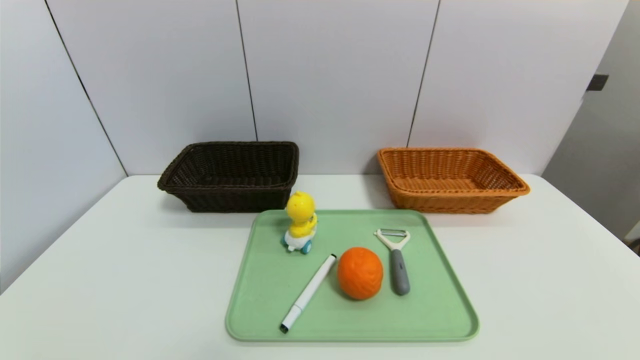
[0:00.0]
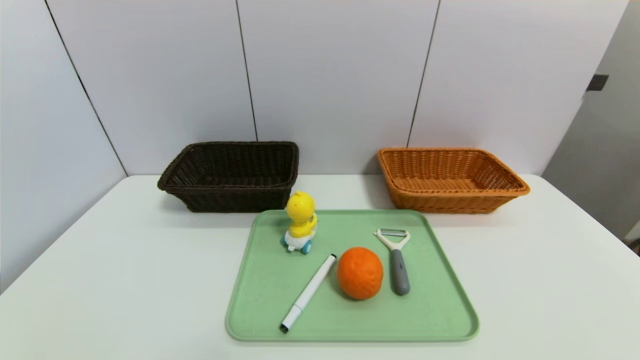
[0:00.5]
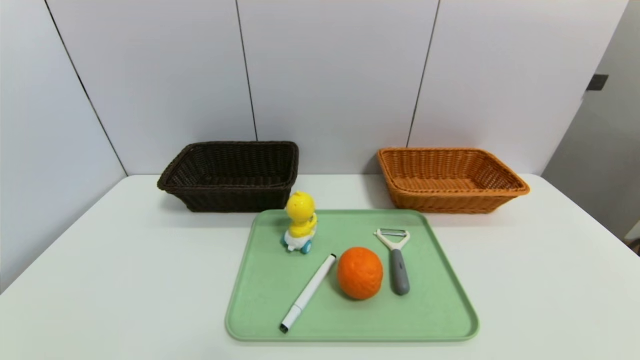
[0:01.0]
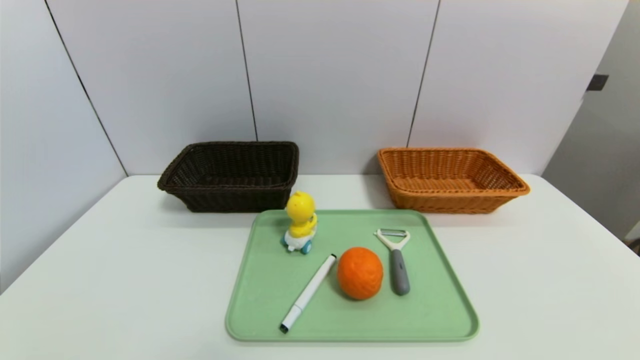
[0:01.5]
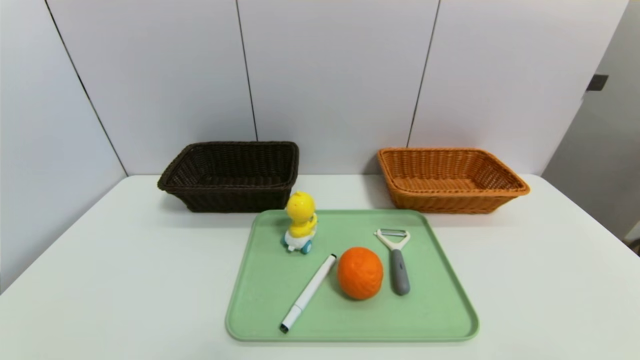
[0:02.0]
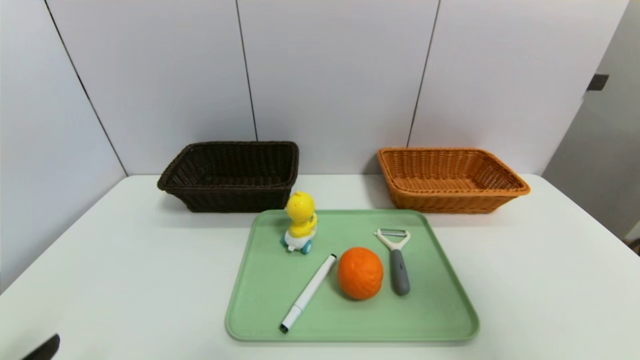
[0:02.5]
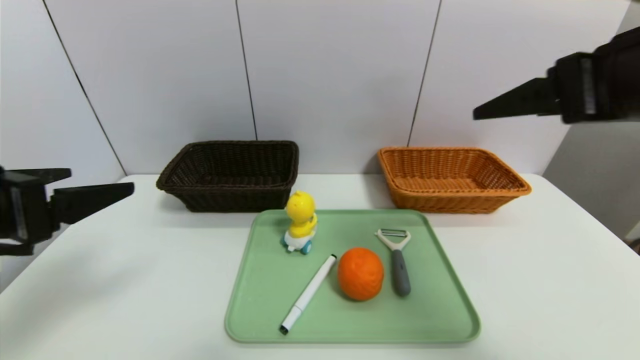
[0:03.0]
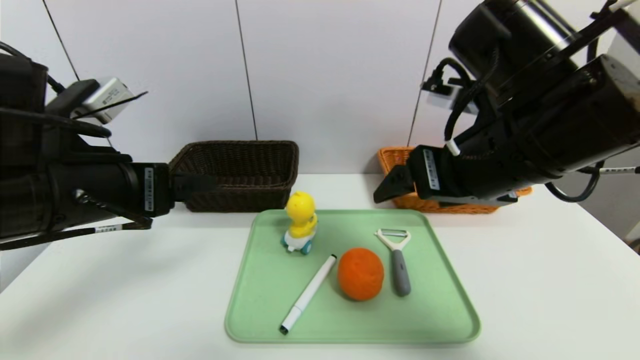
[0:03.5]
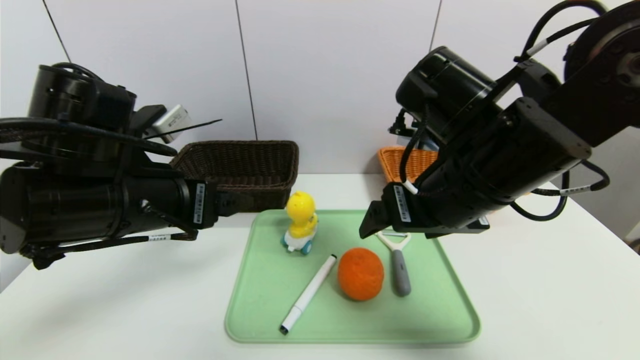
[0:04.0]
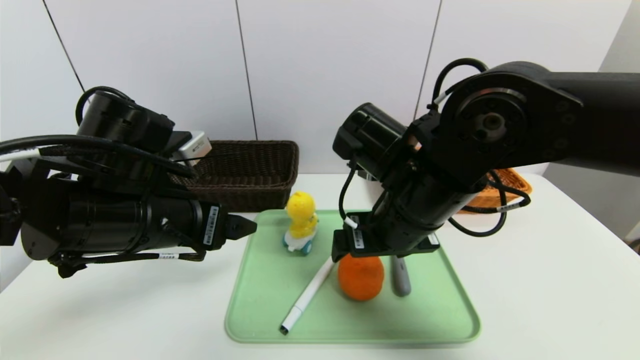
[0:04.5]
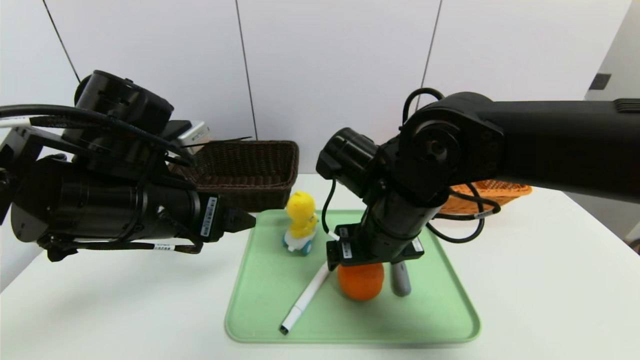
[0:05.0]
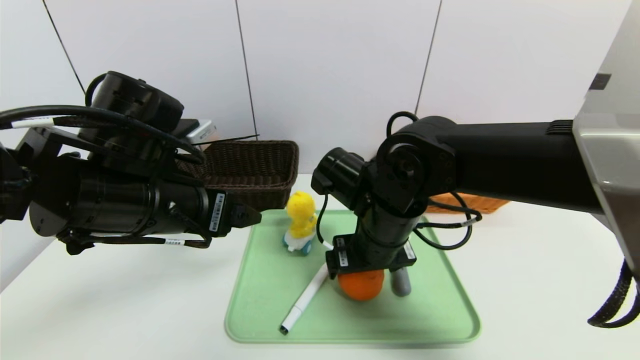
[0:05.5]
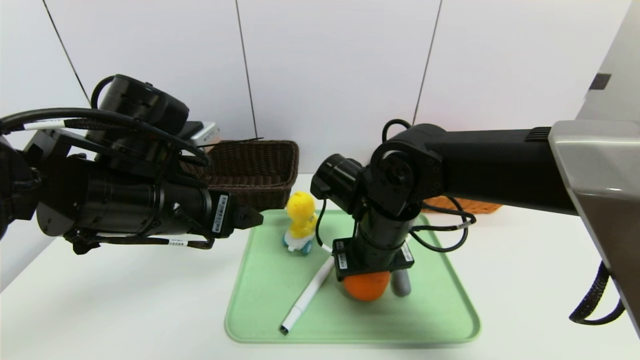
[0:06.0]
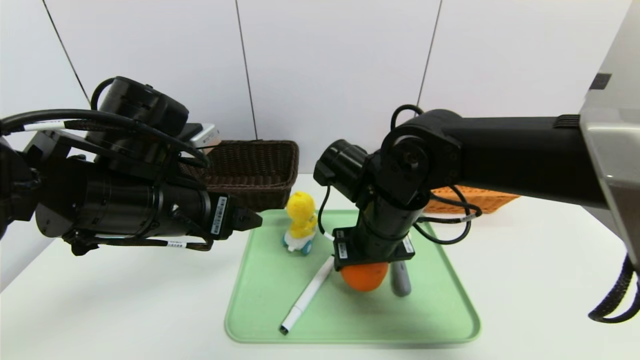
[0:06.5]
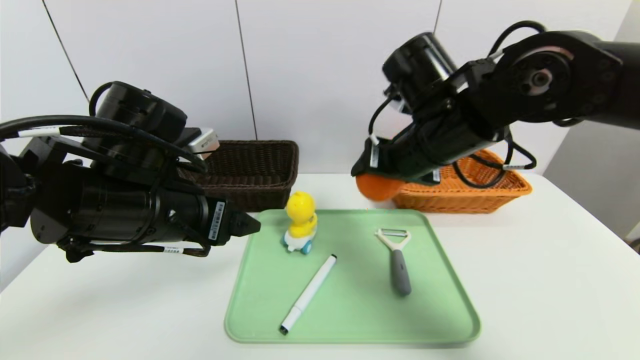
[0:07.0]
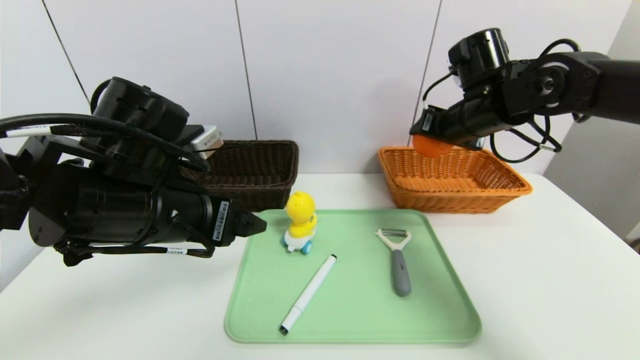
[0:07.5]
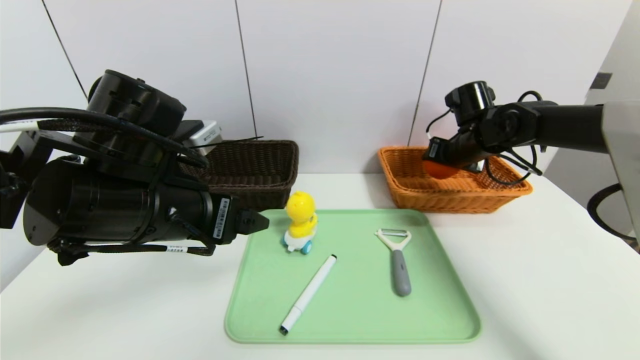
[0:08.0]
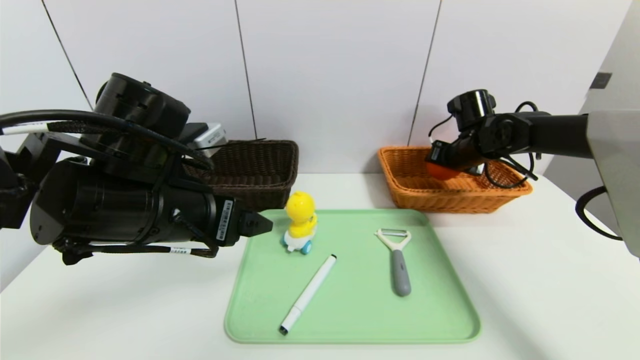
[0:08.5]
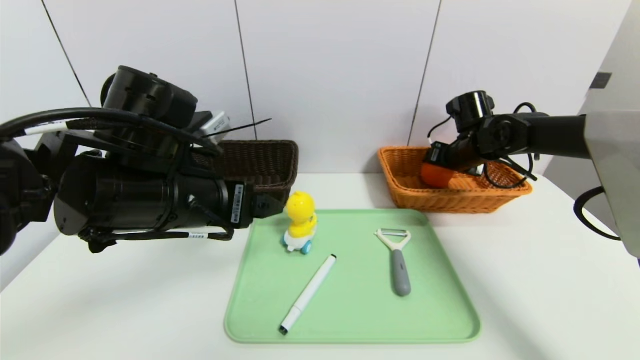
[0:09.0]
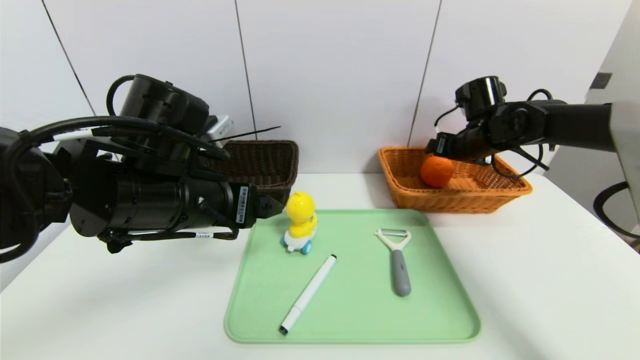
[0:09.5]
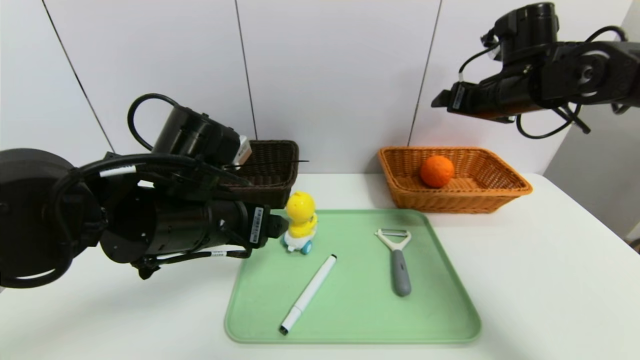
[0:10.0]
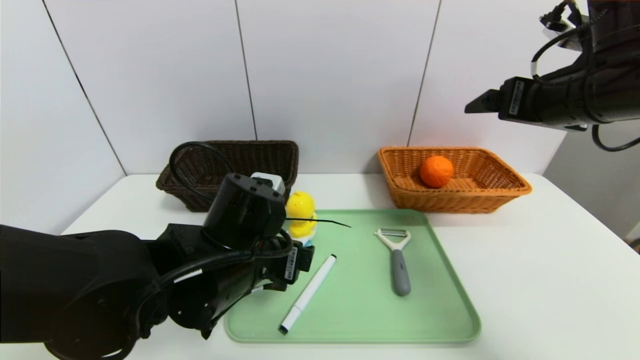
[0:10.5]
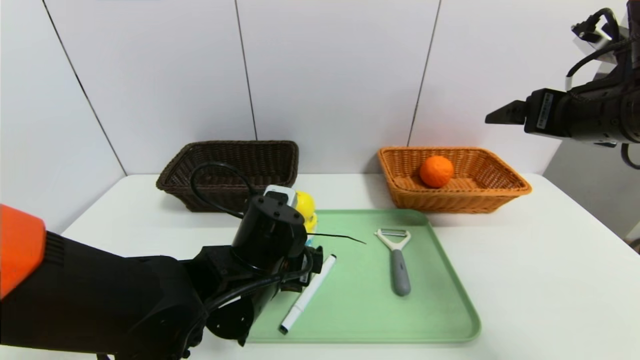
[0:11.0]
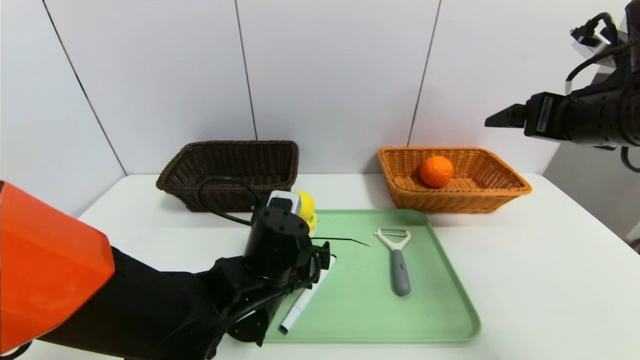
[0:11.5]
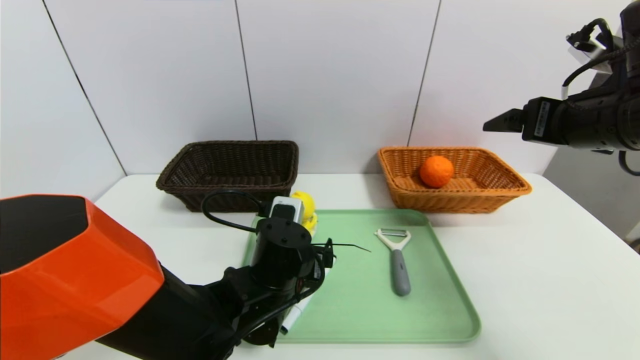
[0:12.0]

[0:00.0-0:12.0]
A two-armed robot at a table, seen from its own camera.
Task of the whole recording: place the food in the right basket with the right gripper, and place the non food items in the left basket with the left gripper.
Step, 0:00.0 to 0:09.0: Grasp the orange and put it in the right basket.
0:02.0 to 0:04.0: The right gripper travels forward and to the left by some 35 cm; the left gripper heads forward, upward and to the right, covering some 30 cm.
0:04.0 to 0:06.0: The right gripper heads downward and to the left, covering some 10 cm, and closes.
0:06.0 to 0:08.0: The right gripper is displaced to the right and forward by roughly 25 cm.
0:08.0 to 0:10.0: The right gripper goes some 15 cm upward and backward, and opens up.
0:10.0 to 0:12.0: The left gripper moves downward and to the right, approximately 15 cm, while the right gripper travels backward by about 10 cm.

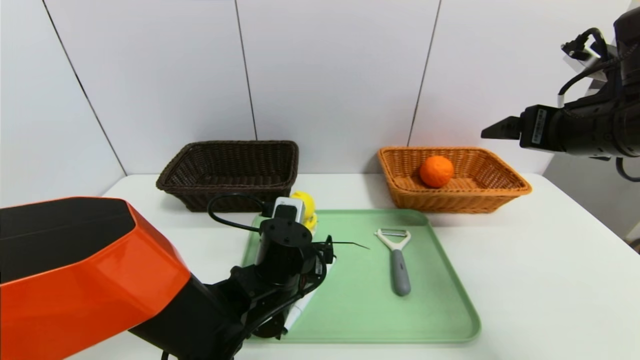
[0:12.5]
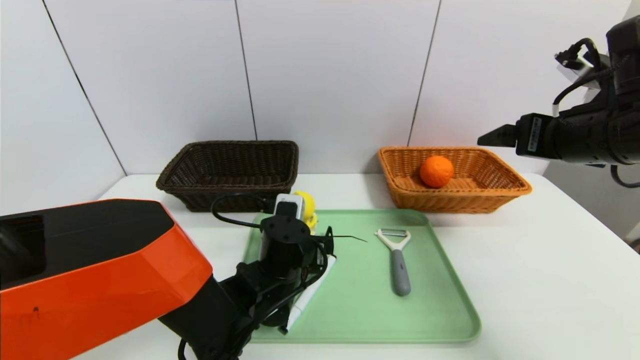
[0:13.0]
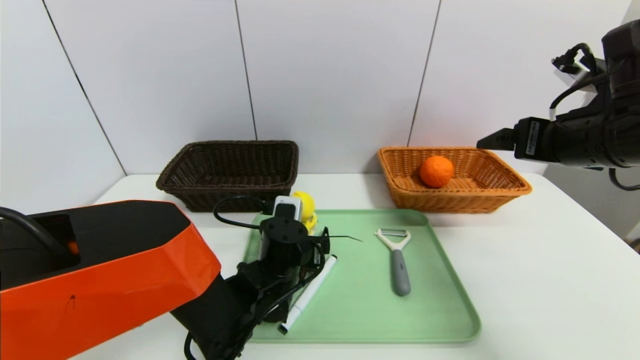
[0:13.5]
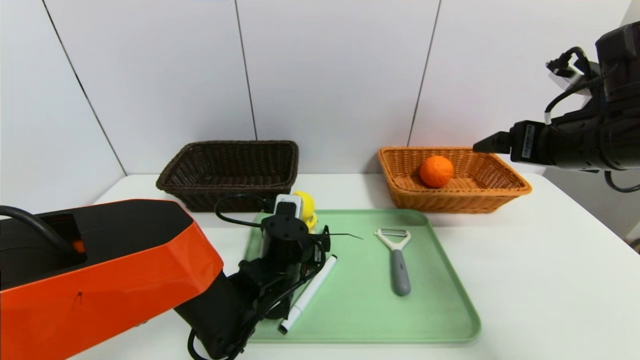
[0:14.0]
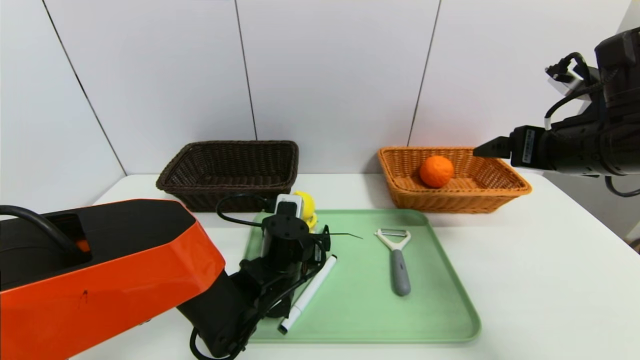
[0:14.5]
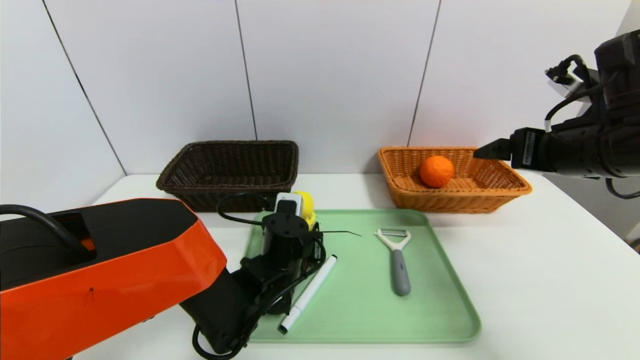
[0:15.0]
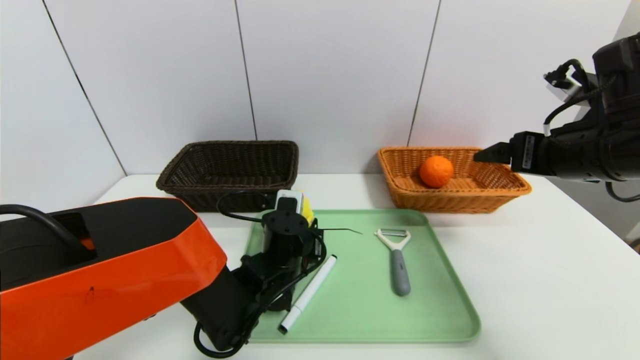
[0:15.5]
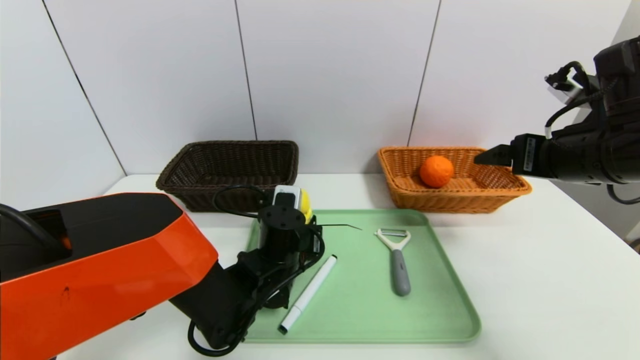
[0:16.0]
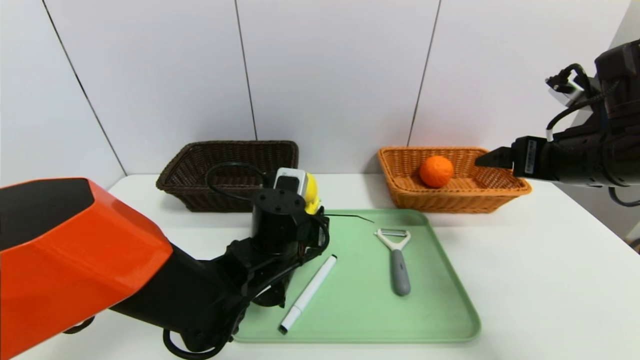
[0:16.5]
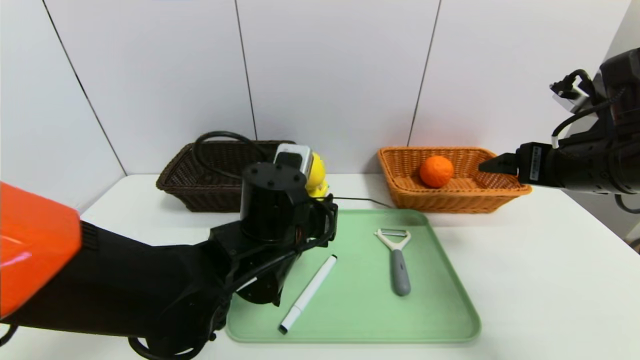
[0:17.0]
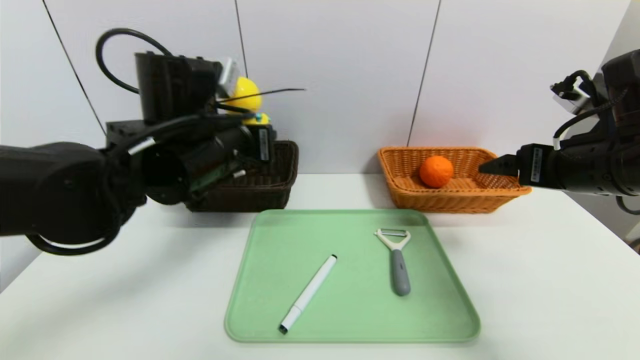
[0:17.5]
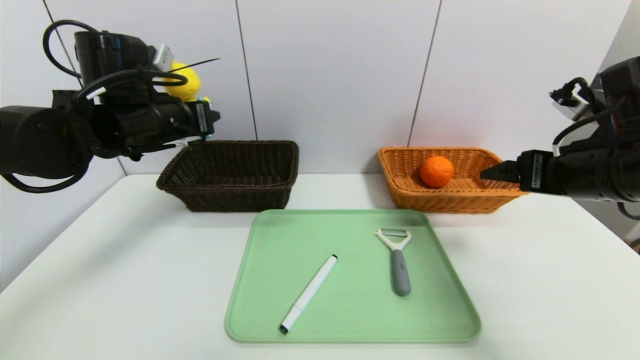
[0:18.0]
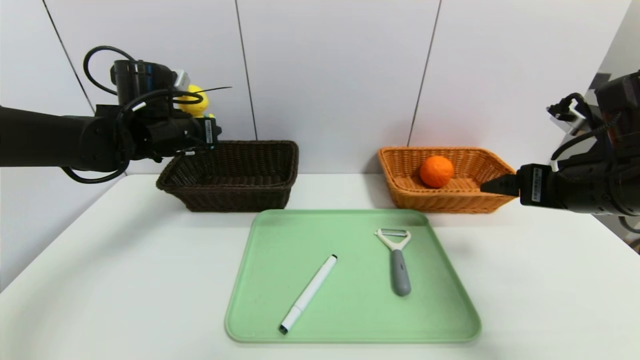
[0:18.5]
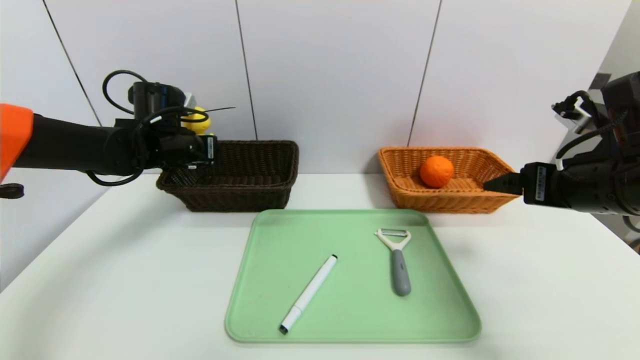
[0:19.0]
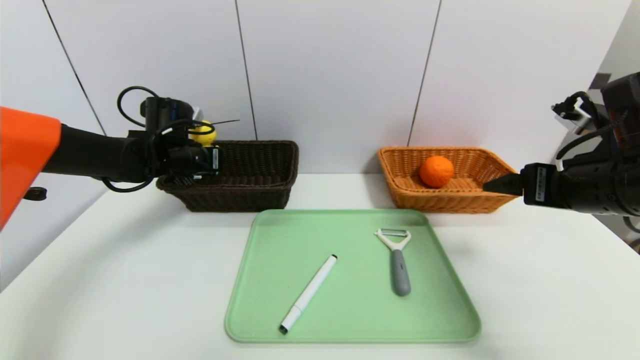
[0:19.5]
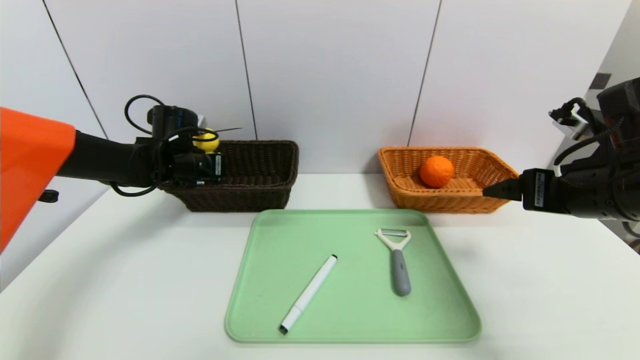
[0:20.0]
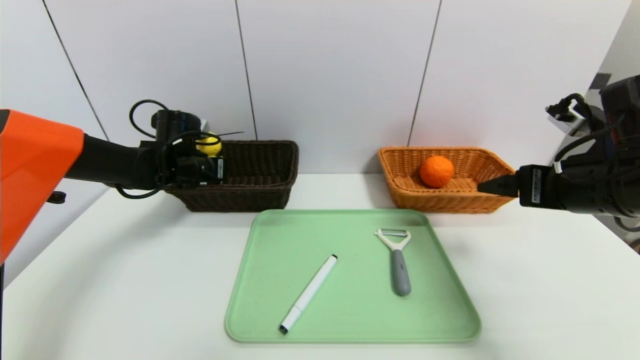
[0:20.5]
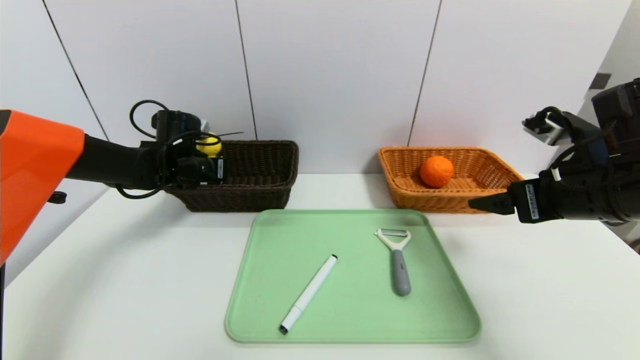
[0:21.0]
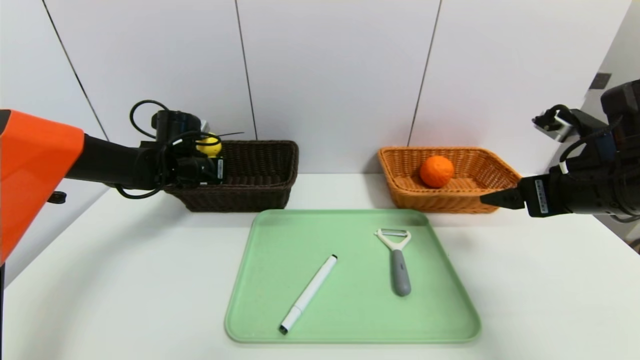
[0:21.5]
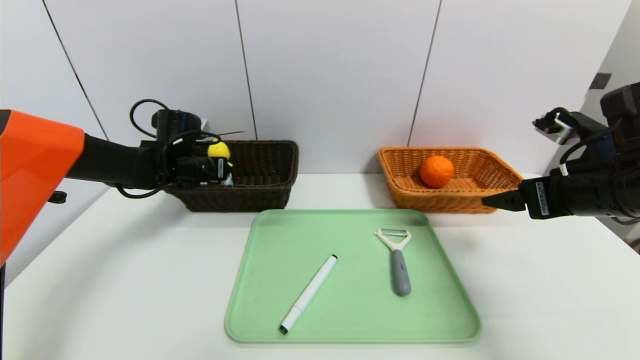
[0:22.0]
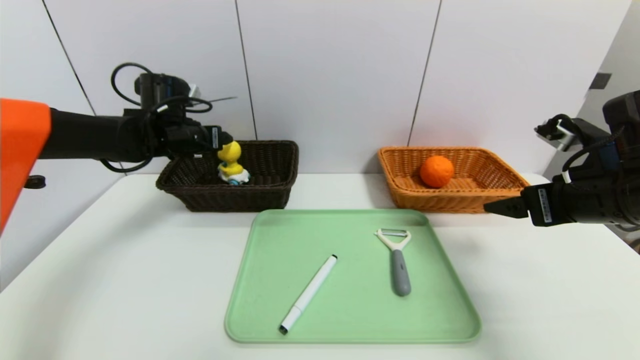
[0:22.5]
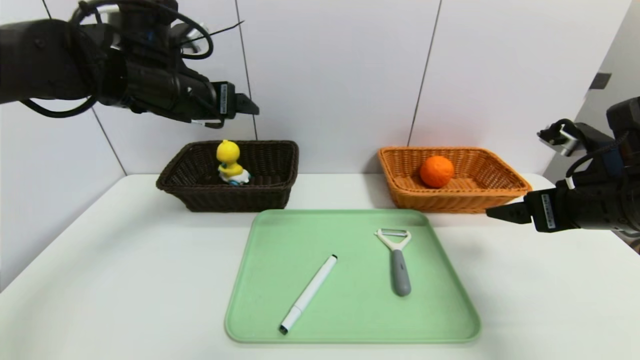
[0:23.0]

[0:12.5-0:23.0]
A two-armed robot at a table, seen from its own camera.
Task of the whole recording: place the food in the right basket with the right gripper, and place the non food items in the left basket with the left gripper.
Step, 0:12.5 to 0:22.5: Grasp the yellow duck and put it in the left basket.
0:12.5 to 0:14.5: There are only small adjustments of the grippers.
0:14.5 to 0:16.5: The left gripper moves upward, some 5 cm, and closes.
0:16.5 to 0:19.0: The left gripper moves to the left, forward and upward, about 25 cm.
0:19.0 to 0:21.0: The left gripper shifts by about 5 cm.
0:21.0 to 0:23.0: The left gripper shifts about 20 cm upward and backward, and opens up.
